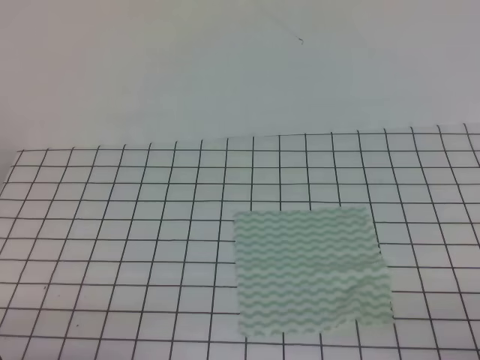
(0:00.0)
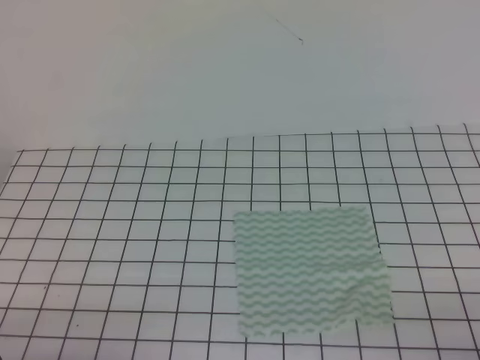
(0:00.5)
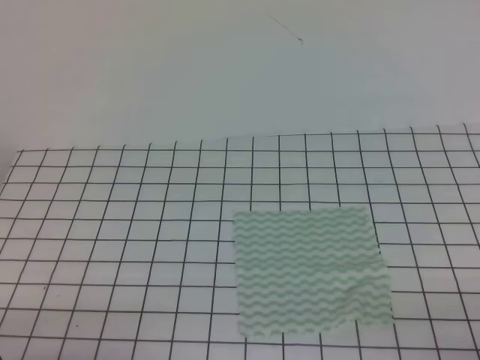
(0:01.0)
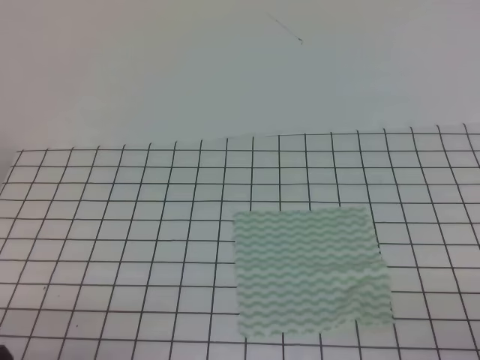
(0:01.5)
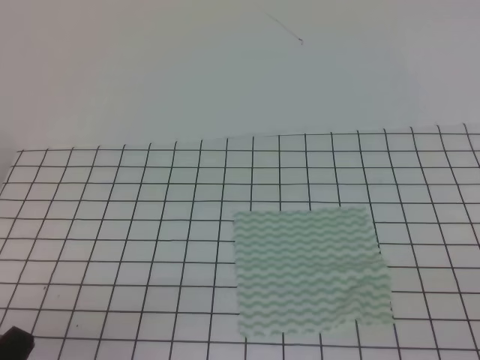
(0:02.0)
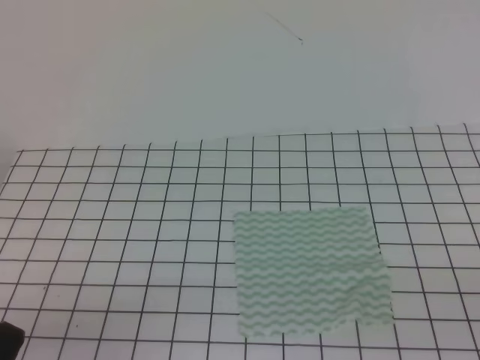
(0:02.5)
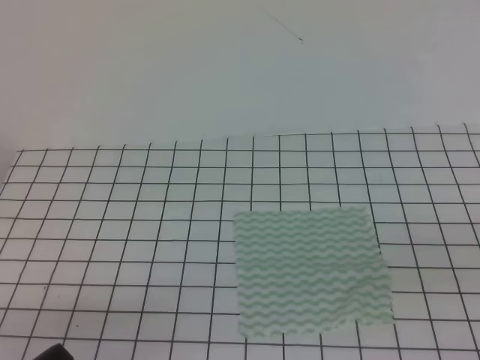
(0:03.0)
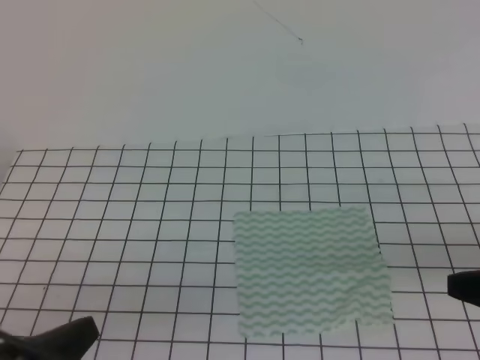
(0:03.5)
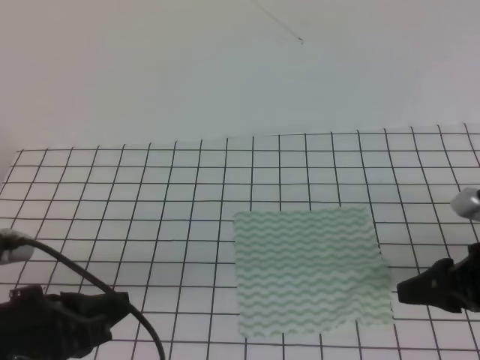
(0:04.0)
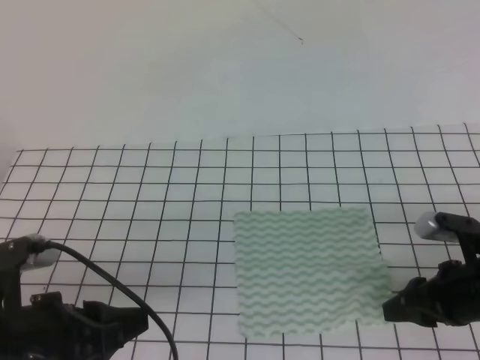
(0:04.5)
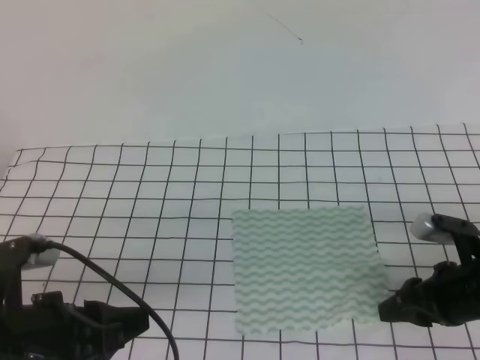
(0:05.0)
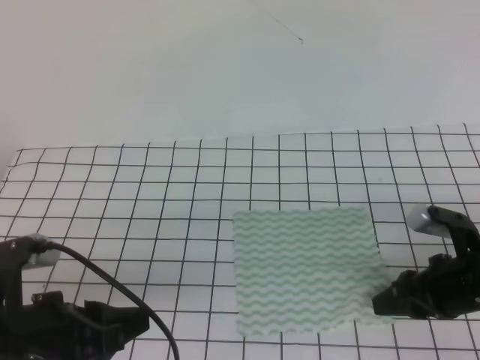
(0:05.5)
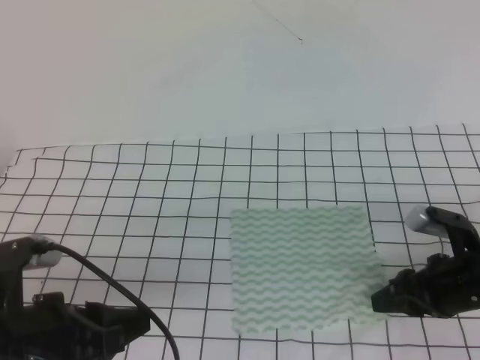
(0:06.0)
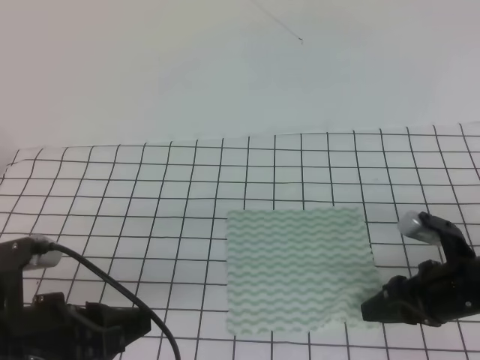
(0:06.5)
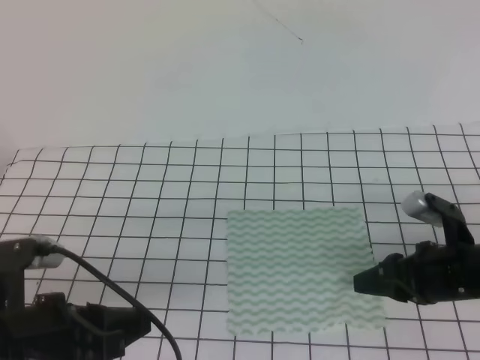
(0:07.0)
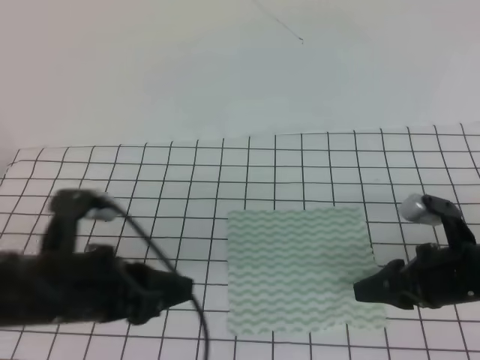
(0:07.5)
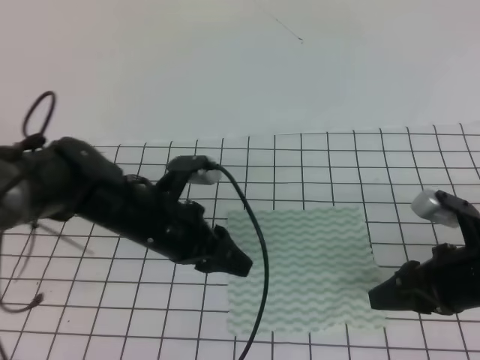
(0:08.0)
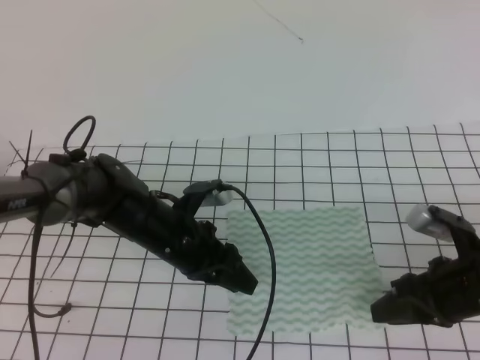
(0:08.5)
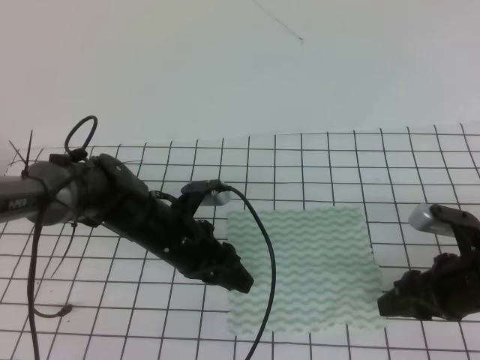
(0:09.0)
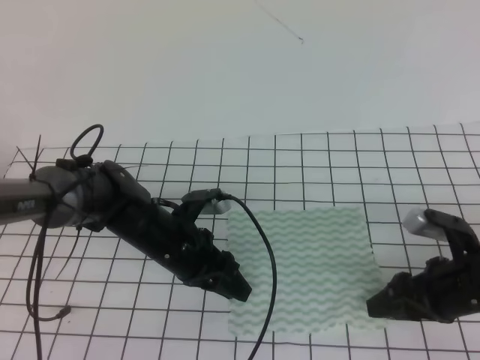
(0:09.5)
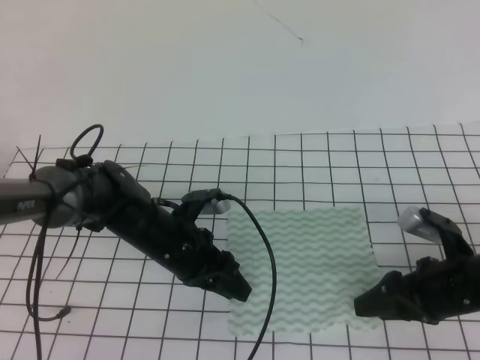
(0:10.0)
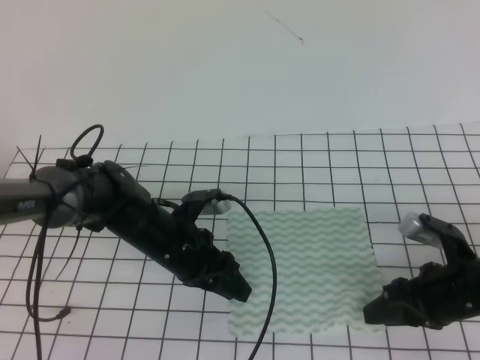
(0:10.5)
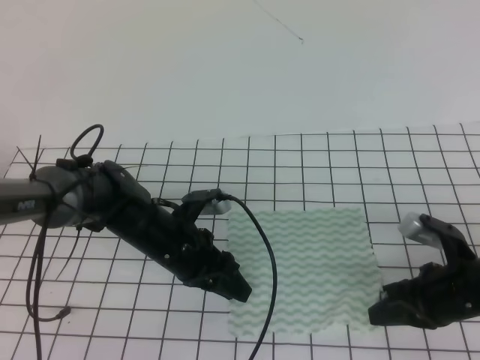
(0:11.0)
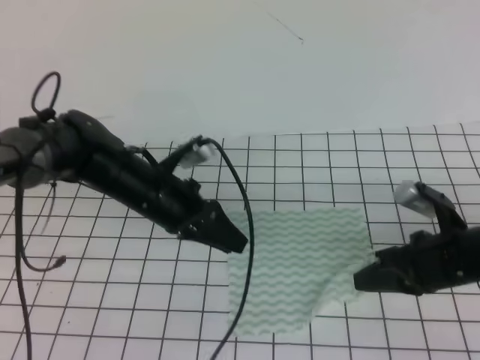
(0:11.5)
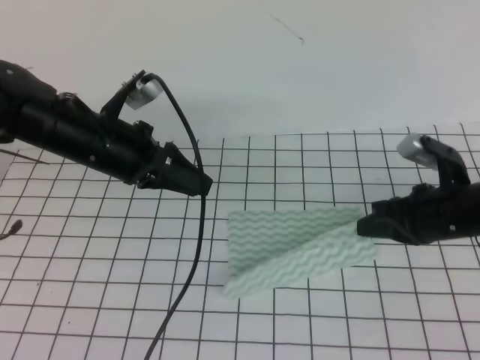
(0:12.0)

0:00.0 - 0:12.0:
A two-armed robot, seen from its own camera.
Step, 0:00.0 - 0:08.0: Fold the towel upwards with the right gripper.
0:02.0 - 0:04.0: The left gripper heads forward and upward, covering approximately 10 cm, and opens, while the right gripper travels forward by approximately 20 cm, and opens its fingers.
0:04.0 - 0:06.0: The left gripper opens its fingers. The right gripper moves downward, about 5 cm.
0:06.0 - 0:08.0: The left gripper moves forward and to the right, approximately 20 cm.
0:08.0 - 0:10.0: The left gripper is displaced downward by approximately 5 cm.
0:10.0 - 0:12.0: The right gripper is displaced forward by approximately 5 cm, and closes, while the left gripper shifts roughly 15 cm upward and to the left.

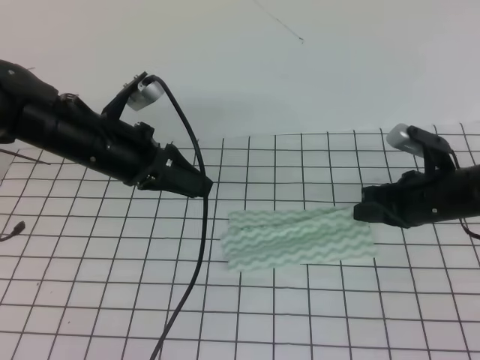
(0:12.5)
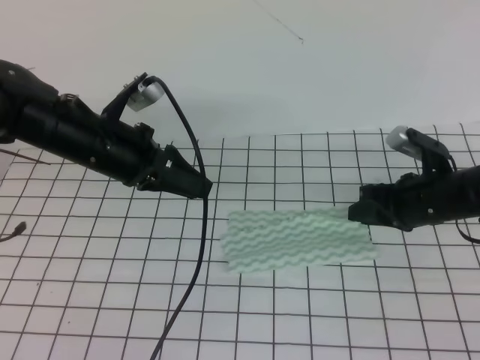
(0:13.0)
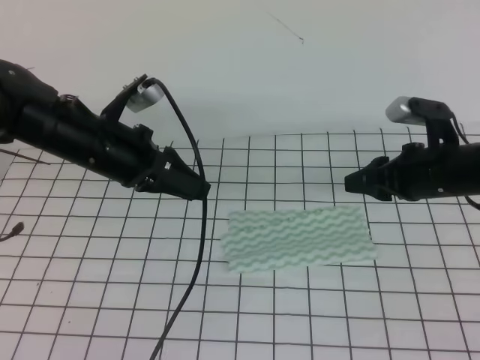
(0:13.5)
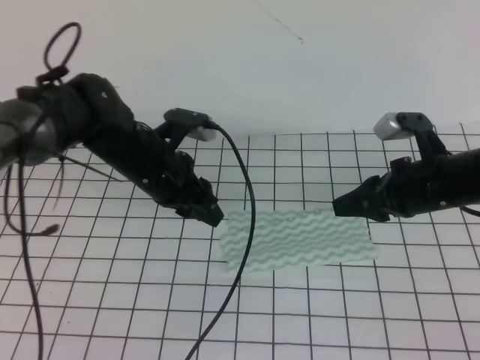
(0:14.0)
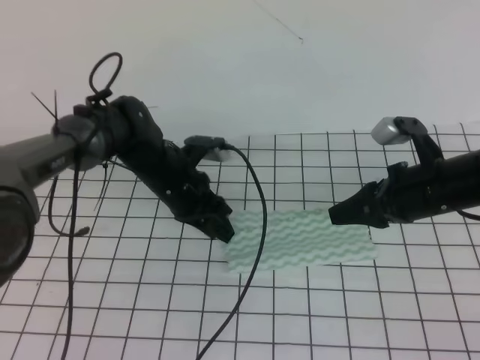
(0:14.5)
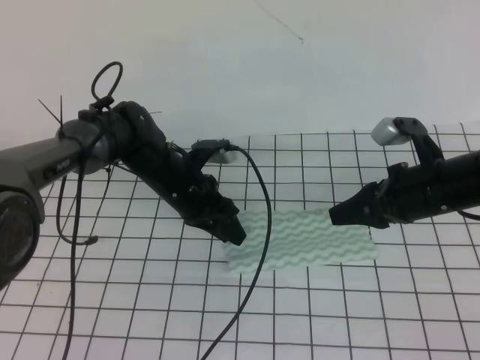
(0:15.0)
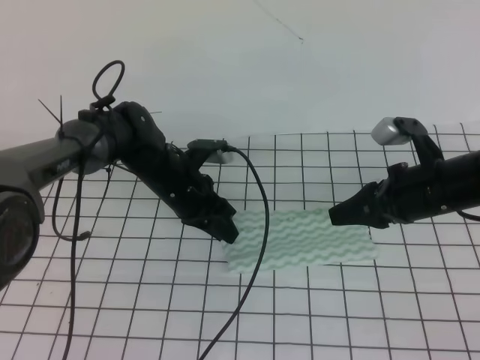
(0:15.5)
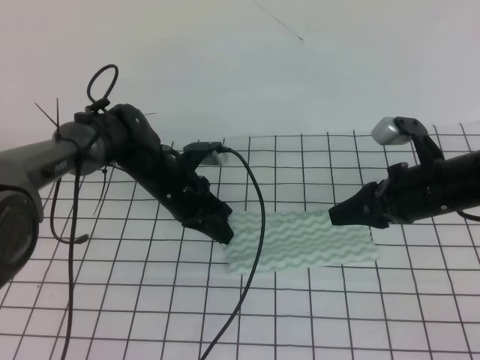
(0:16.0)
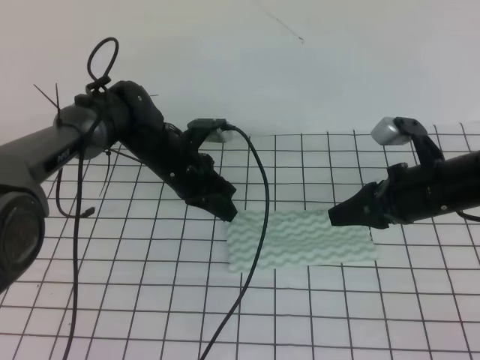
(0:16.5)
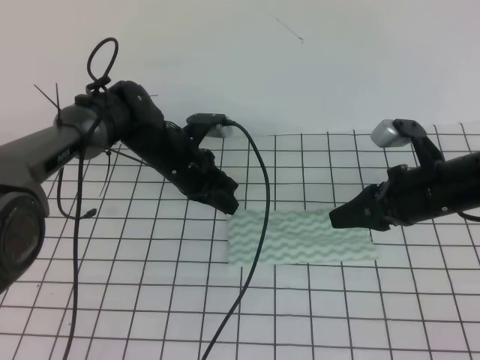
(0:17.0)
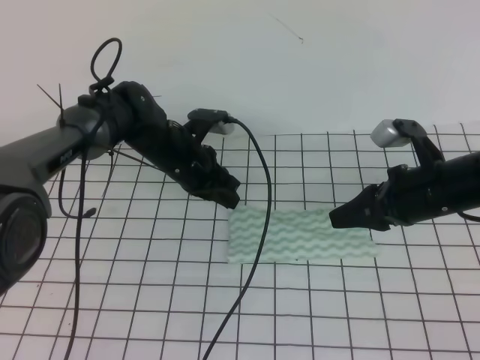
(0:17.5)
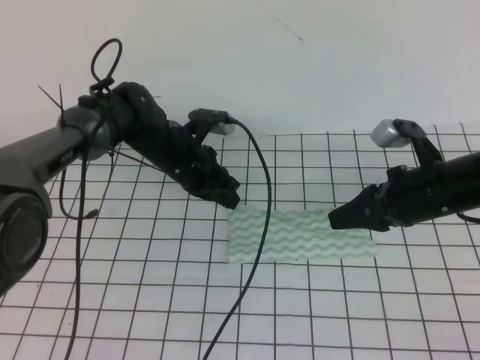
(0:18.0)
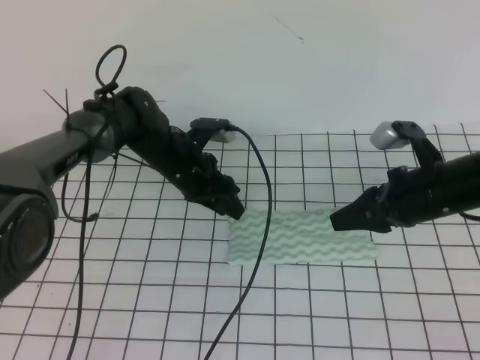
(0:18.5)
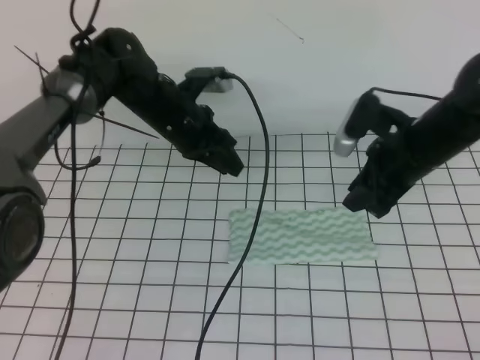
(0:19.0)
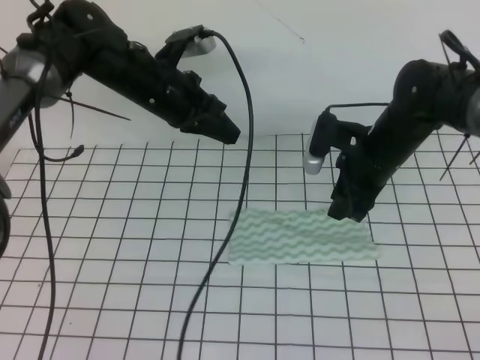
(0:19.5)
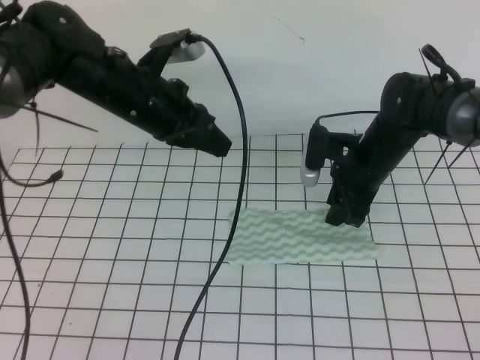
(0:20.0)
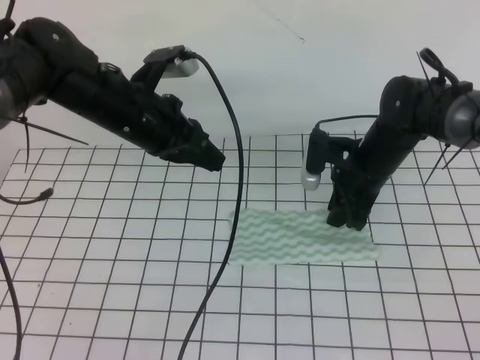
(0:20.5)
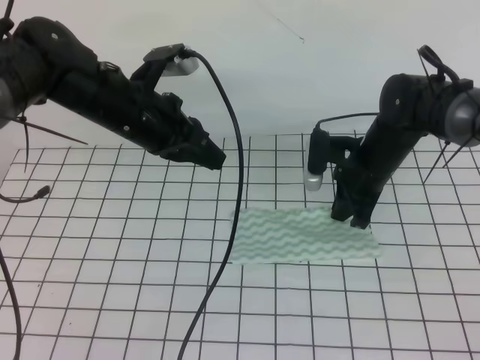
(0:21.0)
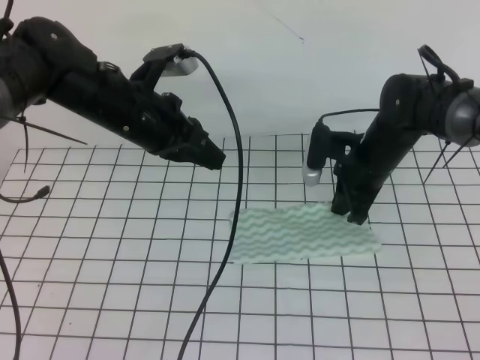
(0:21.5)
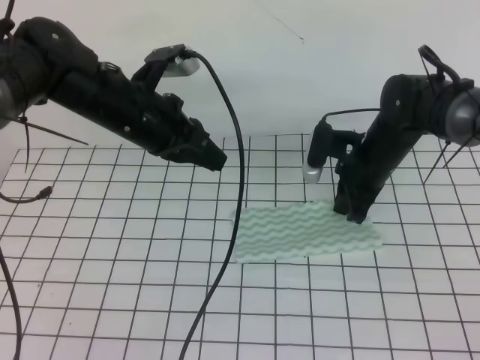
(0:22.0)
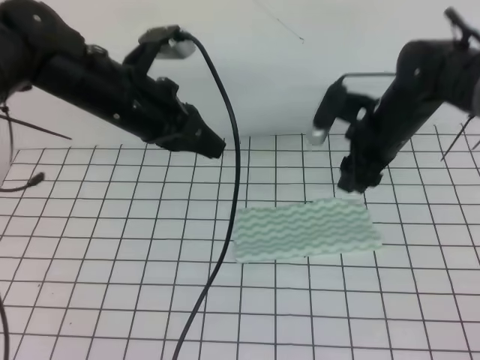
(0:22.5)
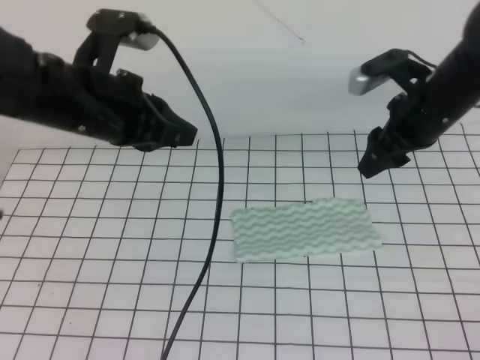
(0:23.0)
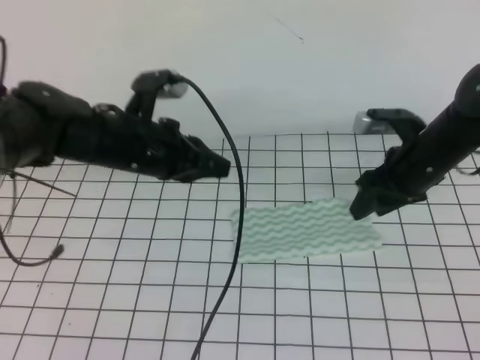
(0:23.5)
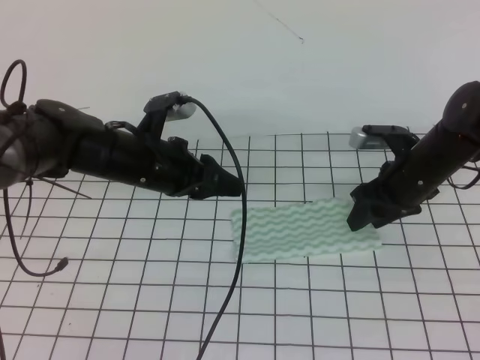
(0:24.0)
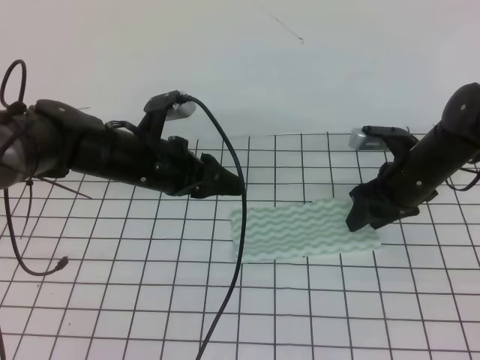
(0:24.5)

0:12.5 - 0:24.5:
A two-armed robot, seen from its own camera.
Step, 0:14.0 - 0:16.0: Fold the towel from right to left with the right gripper.
Step, 0:16.5 - 0:19.5: Tidy up the towels.
0:12.5 - 0:14.5: The right gripper opens up; the left gripper is displaced downward, to the right and forward by about 15 cm.
0:14.5 - 0:16.5: The left gripper closes.
0:16.5 - 0:18.5: The left gripper opens.
0:18.5 - 0:20.5: The left gripper moves upward and backward, roughly 15 cm, and closes. The right gripper shifts roughly 10 cm forward and to the left.
0:20.5 - 0:22.5: The right gripper is displaced upward by roughly 5 cm, and opens.
0:22.5 - 0:24.5: Both grippers move downward, some 10 cm. The left gripper opens its fingers.

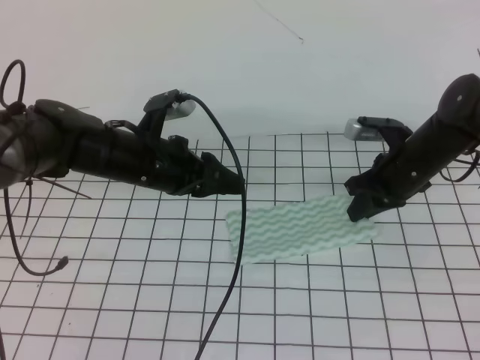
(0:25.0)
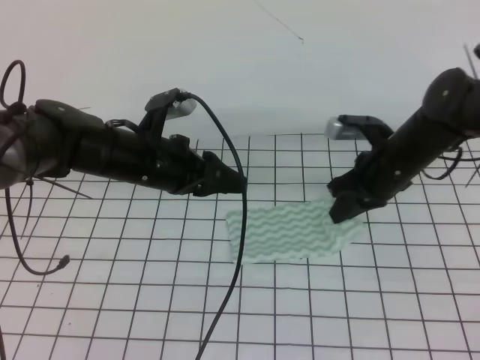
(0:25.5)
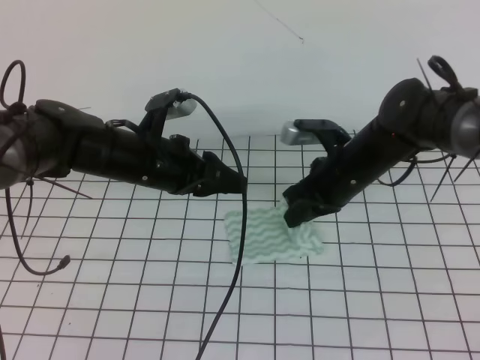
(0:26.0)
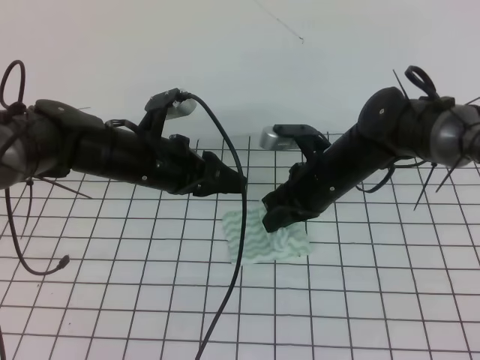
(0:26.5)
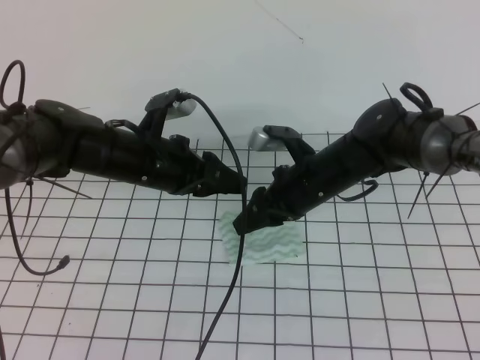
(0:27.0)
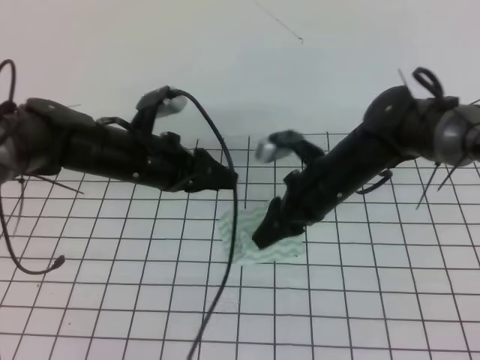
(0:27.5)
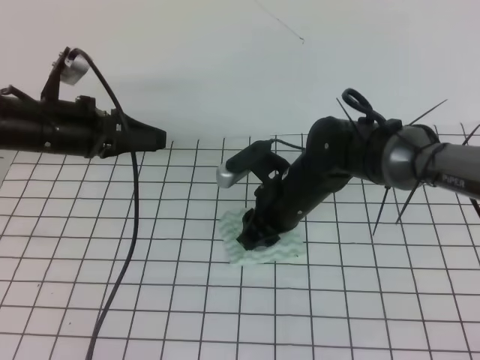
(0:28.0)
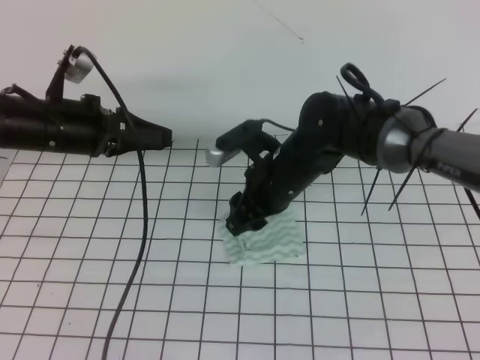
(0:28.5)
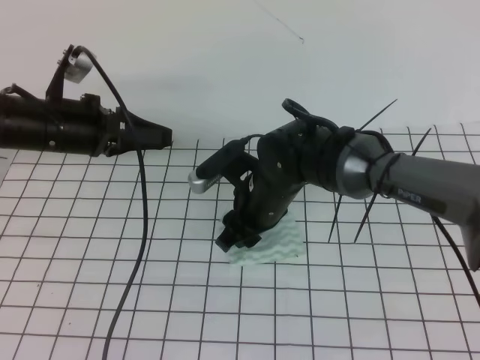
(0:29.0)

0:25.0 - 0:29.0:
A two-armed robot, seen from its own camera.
0:25.0 - 0:27.0: The right gripper shifts roughly 10 cm to the left, and opens up.
0:27.0 - 0:29.0: Both grippers move to the left, some 10 cm. The left gripper closes its fingers.
